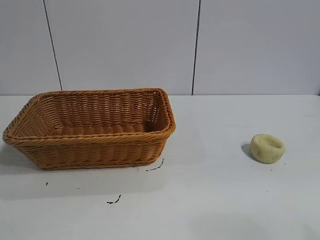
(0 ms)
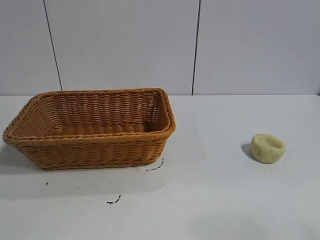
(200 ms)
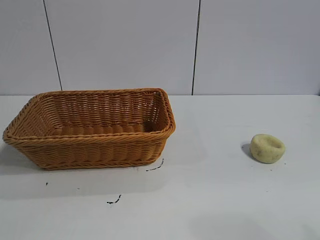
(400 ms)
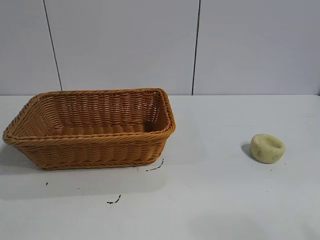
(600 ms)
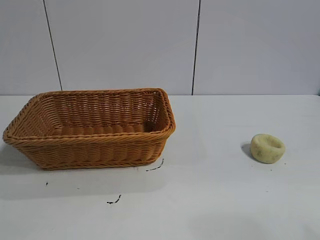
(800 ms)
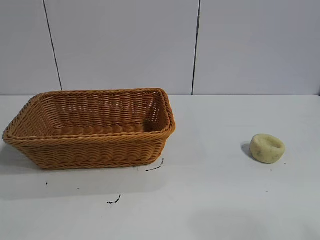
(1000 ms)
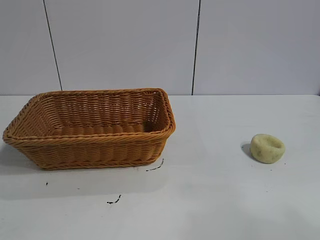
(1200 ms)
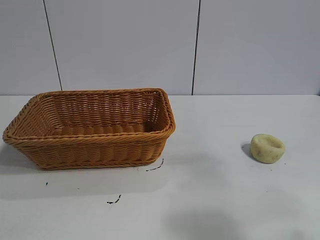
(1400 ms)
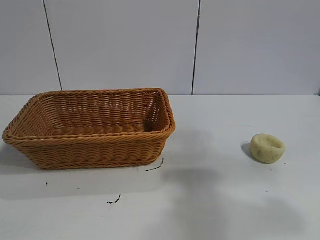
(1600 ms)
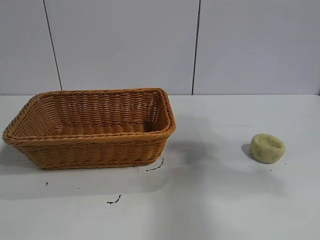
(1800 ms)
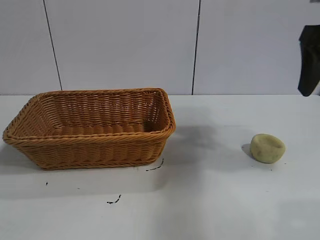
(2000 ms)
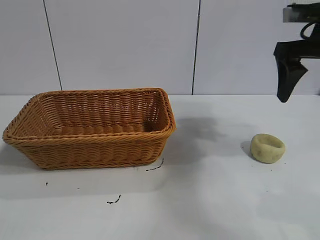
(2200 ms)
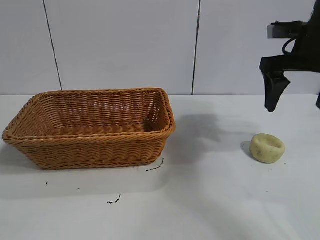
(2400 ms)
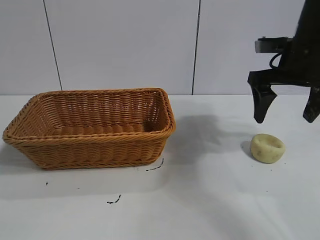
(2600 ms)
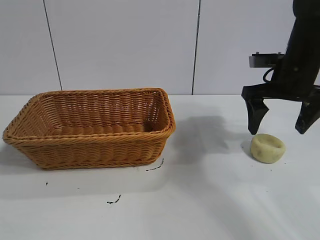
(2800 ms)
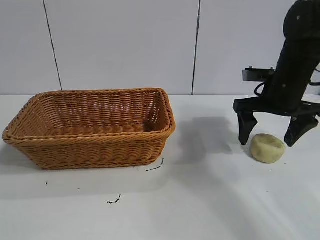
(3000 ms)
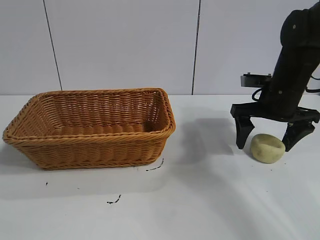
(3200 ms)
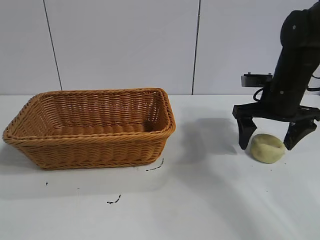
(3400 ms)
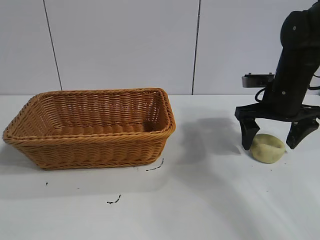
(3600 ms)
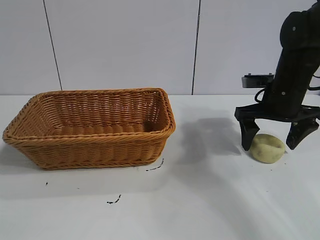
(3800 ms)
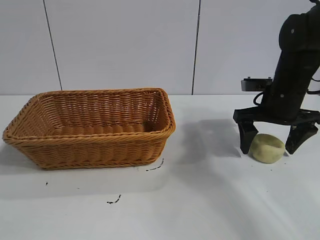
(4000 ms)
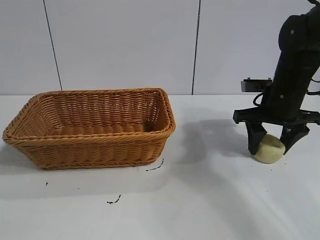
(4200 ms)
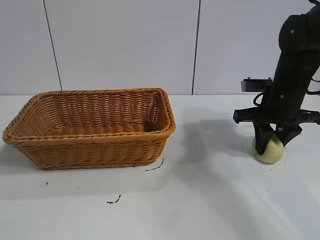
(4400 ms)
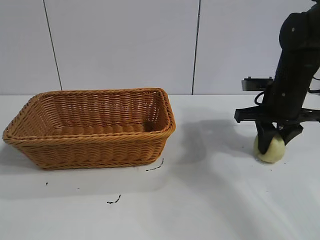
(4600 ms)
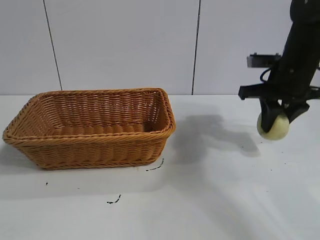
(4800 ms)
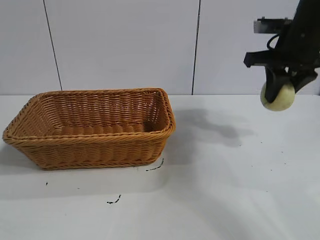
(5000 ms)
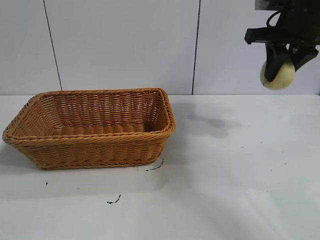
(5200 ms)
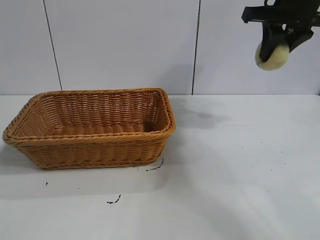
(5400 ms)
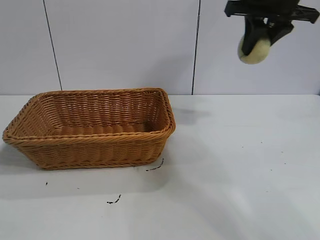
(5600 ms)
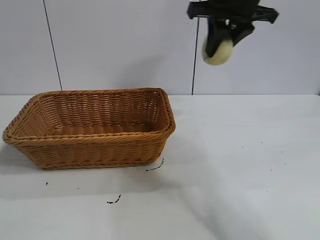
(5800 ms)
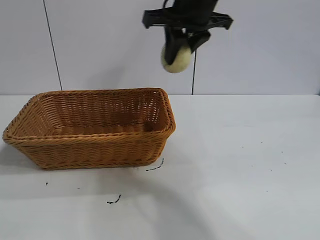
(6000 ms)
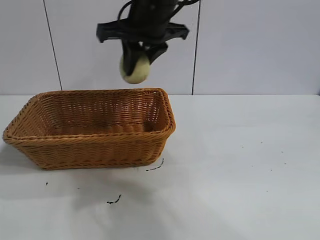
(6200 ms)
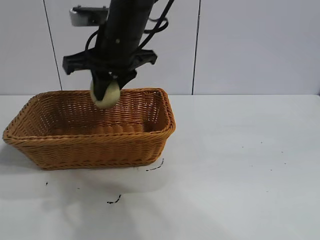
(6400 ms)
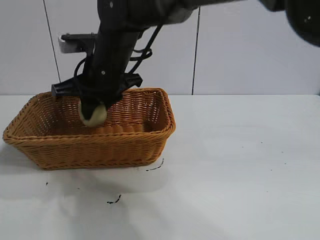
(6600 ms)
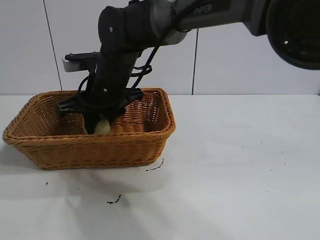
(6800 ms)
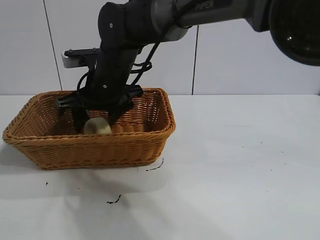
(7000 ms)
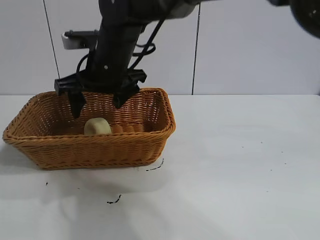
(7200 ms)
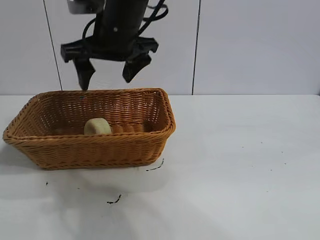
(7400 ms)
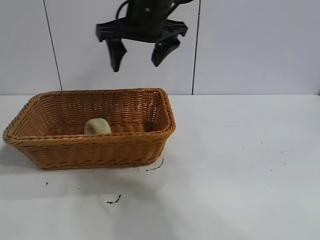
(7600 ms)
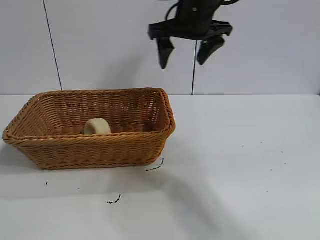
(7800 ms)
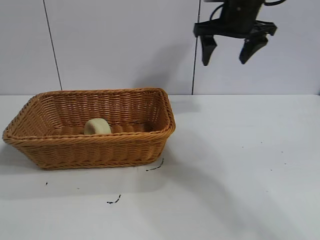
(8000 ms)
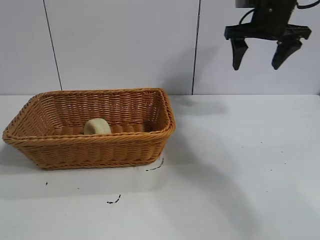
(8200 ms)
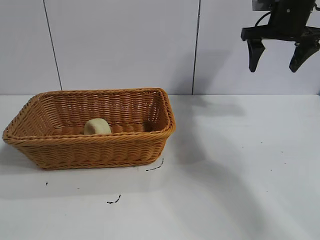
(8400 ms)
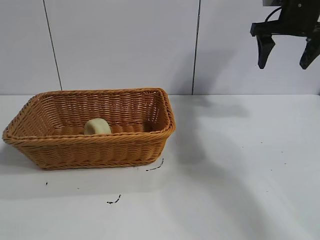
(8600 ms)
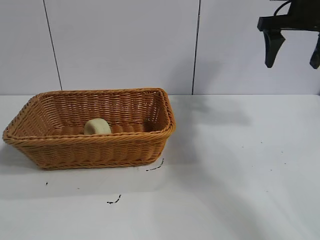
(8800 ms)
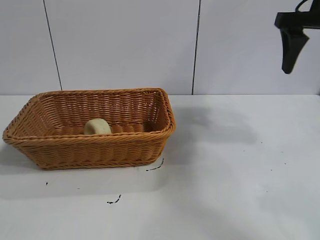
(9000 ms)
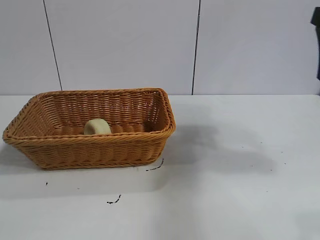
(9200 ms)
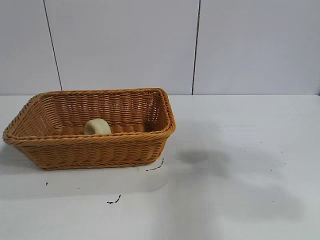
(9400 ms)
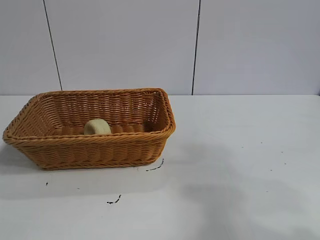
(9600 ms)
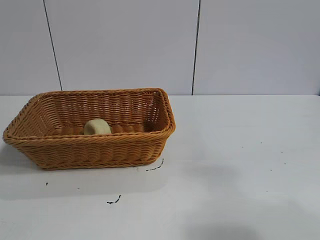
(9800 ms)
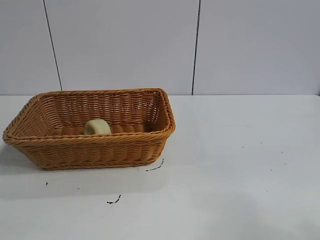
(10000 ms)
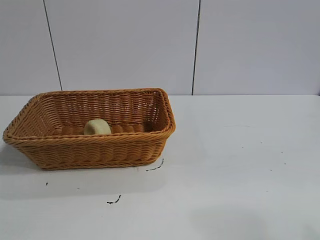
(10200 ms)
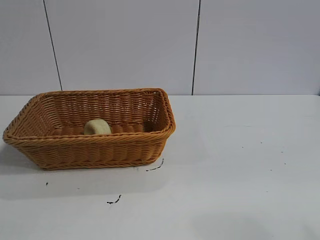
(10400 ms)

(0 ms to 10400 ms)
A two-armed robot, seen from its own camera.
Task of the whole recording: pick up the egg yolk pastry and put it into the basket.
Step, 1000 ms - 4400 ms: Grasp egg yolk pastry with right gripper.
Step, 4600 ms - 7000 ms: Place the egg yolk pastry in the basket with right gripper.
